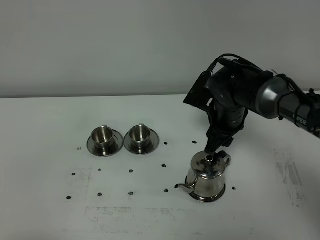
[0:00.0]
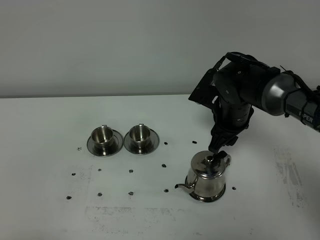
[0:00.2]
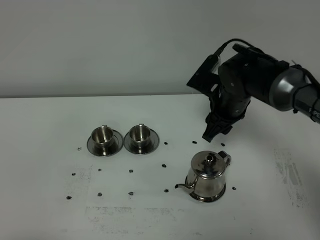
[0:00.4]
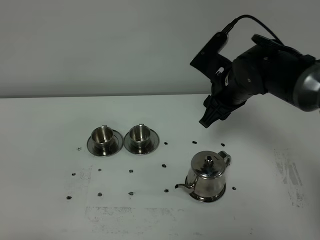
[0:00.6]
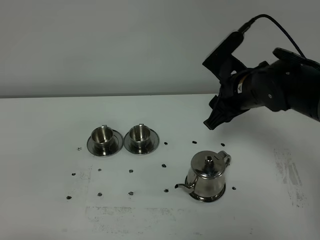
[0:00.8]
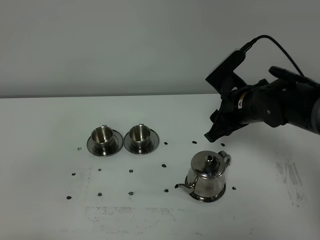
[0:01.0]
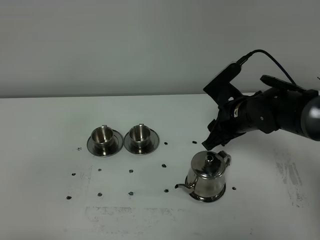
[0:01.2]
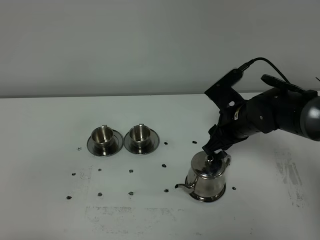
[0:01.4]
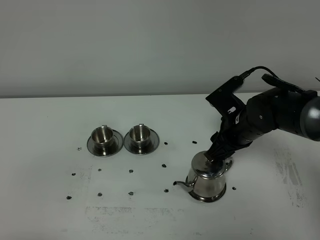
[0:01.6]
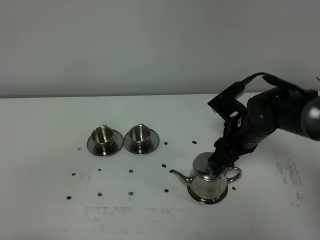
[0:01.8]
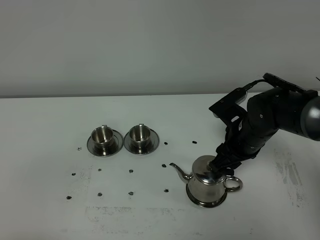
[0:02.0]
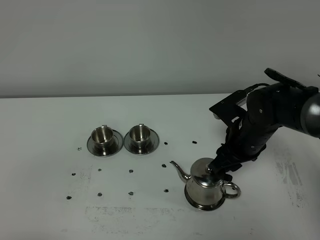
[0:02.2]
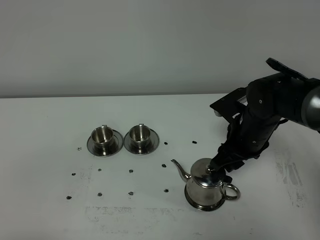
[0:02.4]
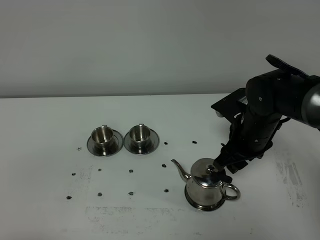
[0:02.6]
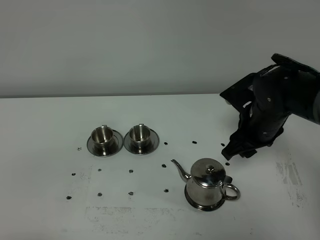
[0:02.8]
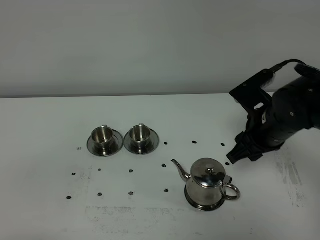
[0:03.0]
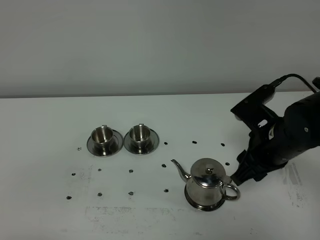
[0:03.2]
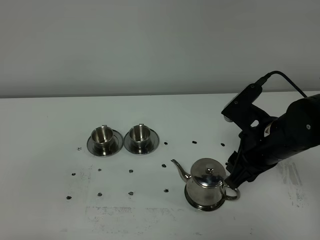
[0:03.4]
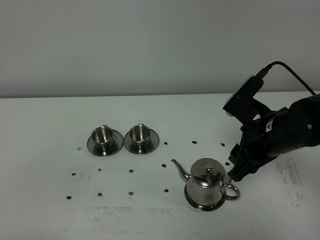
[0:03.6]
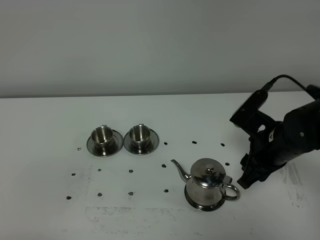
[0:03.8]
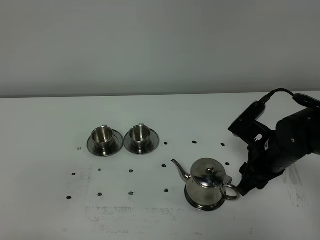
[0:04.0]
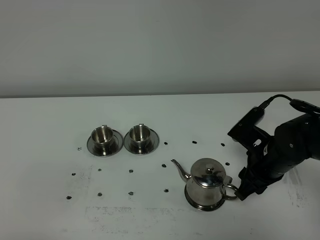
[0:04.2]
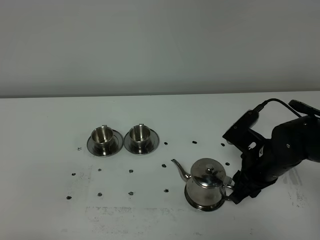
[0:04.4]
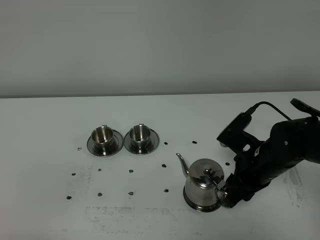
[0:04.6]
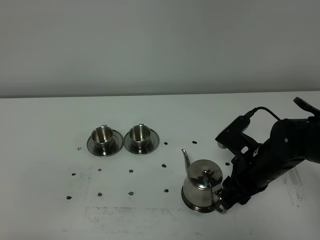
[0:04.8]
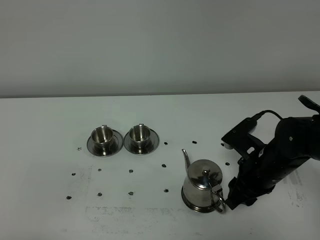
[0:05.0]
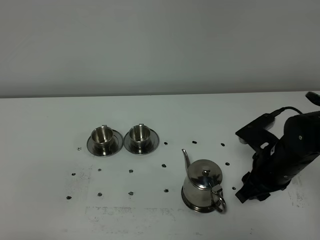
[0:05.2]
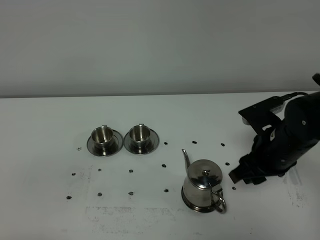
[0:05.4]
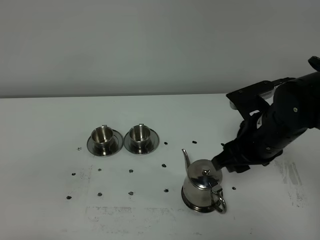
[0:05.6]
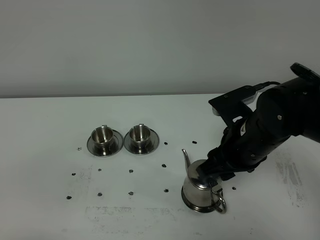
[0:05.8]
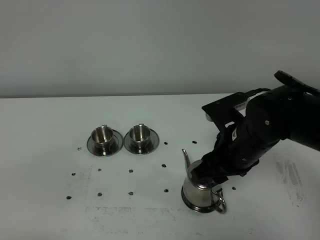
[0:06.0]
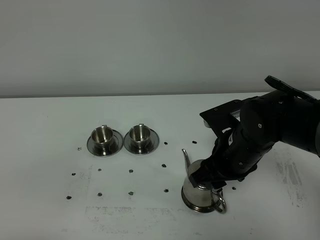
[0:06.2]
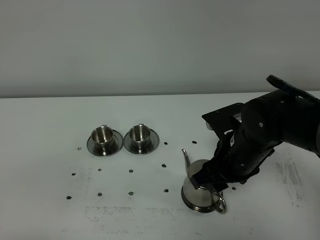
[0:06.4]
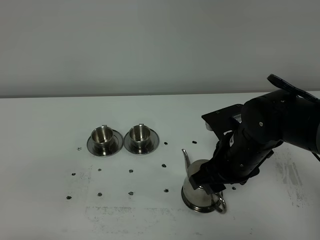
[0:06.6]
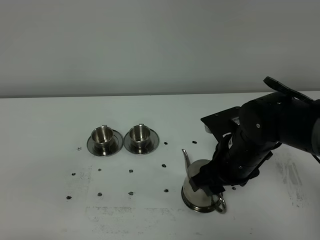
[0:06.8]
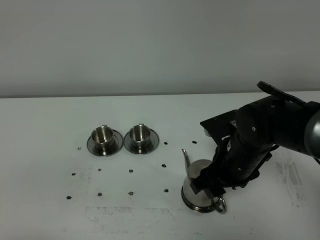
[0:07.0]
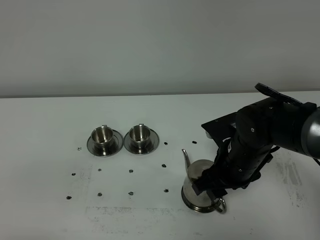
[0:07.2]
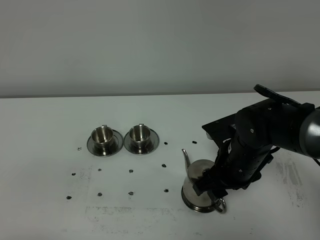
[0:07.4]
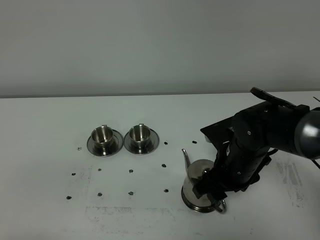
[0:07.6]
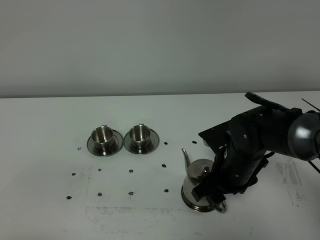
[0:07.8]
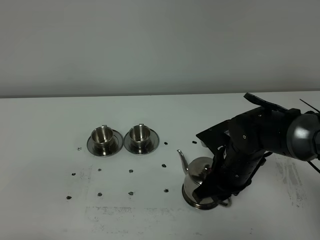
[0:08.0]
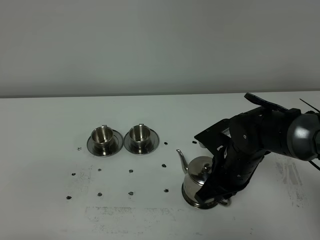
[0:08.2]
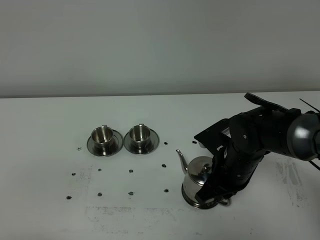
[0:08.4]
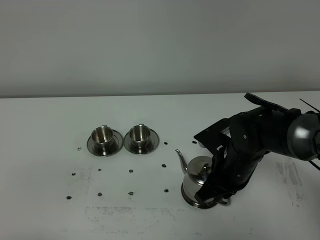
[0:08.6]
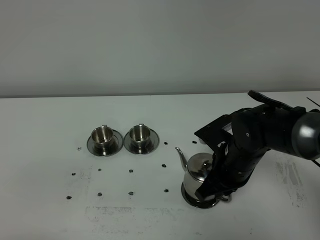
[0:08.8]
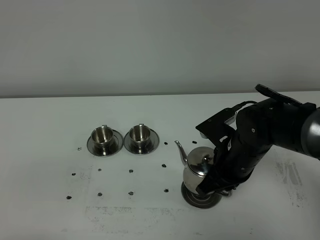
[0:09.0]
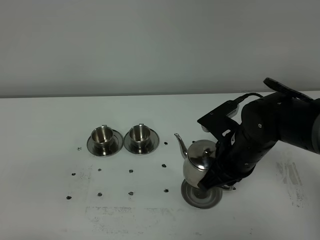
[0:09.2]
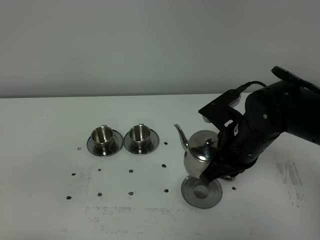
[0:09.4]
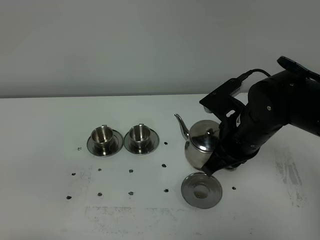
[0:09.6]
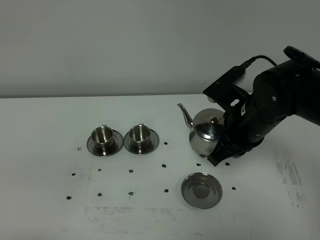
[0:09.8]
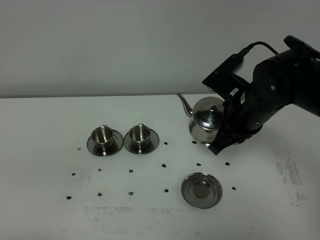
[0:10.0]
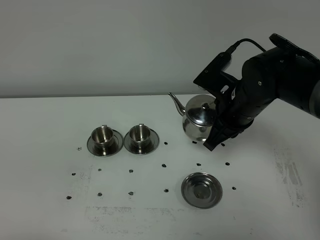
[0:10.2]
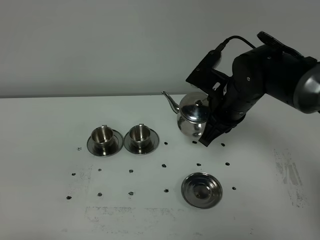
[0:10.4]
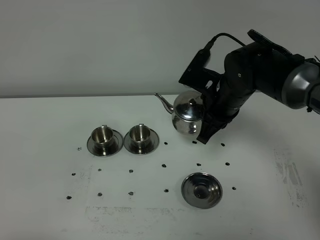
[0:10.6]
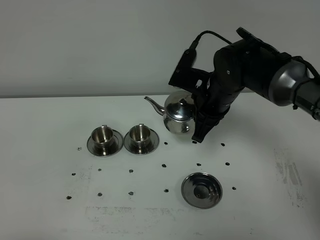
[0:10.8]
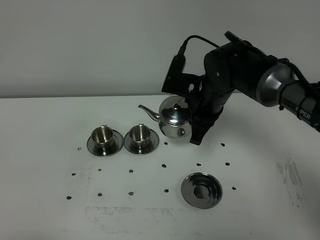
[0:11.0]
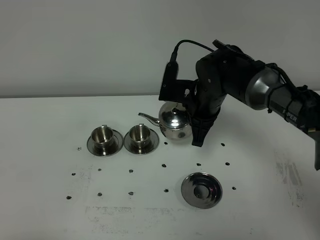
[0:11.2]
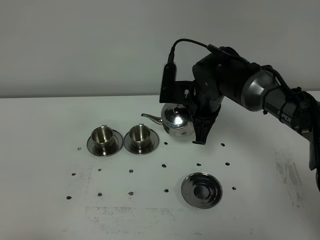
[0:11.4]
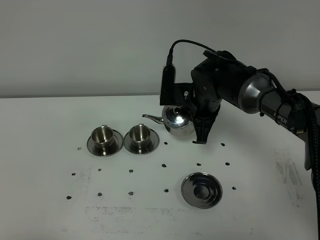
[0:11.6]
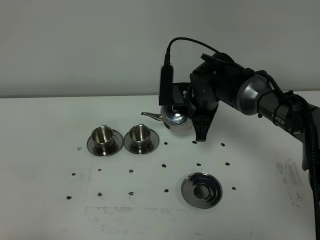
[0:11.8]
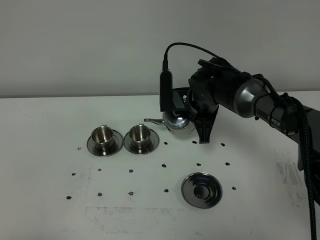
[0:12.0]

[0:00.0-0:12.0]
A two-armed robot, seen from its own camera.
Task of the whole recording: grasp the stainless steel teapot and pour the tea into the two stainless steel teacups one by one, put the stainless steel teapot back in its original place.
Step, 0:00.0 to 0:09.0: Pick up the teapot with the right gripper.
0:00.0 to 0:01.6: The right gripper travels upward and back again, about 5 cm each way.
0:01.6 to 0:03.0: The right gripper travels upward by some 5 cm.
0:03.0 to 0:04.4: The right gripper moves downward, approximately 5 cm.
0:04.4 to 0:06.0: The right gripper moves upward and to the left, about 10 cm.
0:06.0 to 0:07.6: The right gripper heads downward, covering some 5 cm.
0:07.6 to 0:09.0: The right gripper closes.
0:09.0 to 0:10.4: The right gripper goes roughly 10 cm forward and upward.
0:10.4 to 0:12.0: The right gripper shifts about 5 cm forward and downward.

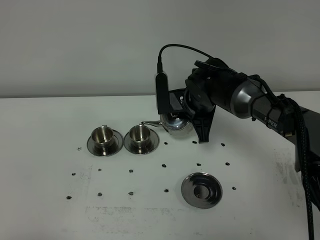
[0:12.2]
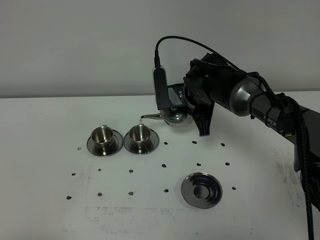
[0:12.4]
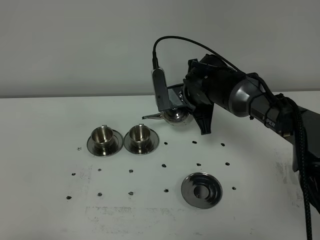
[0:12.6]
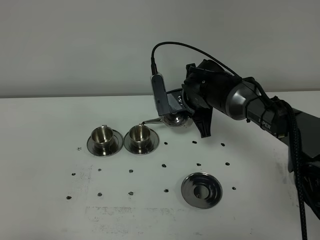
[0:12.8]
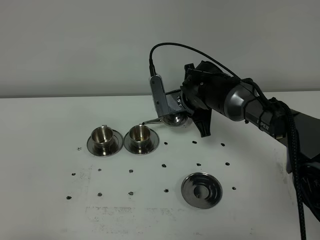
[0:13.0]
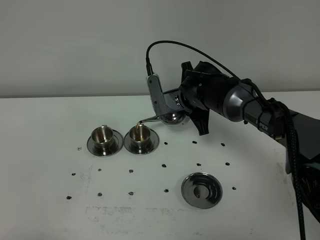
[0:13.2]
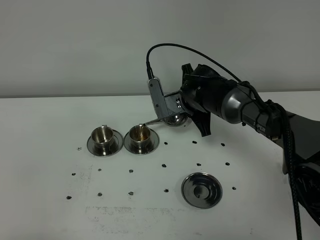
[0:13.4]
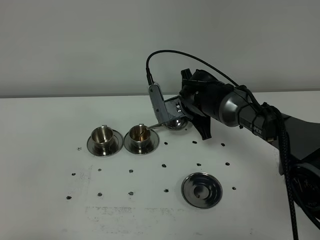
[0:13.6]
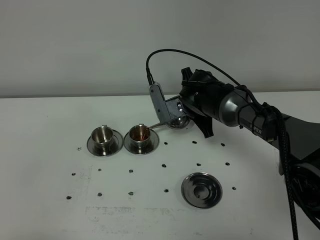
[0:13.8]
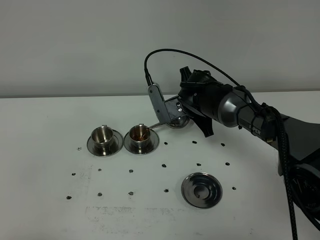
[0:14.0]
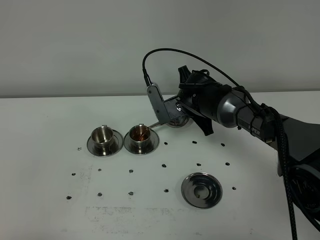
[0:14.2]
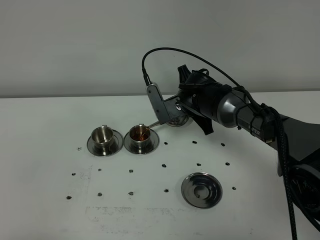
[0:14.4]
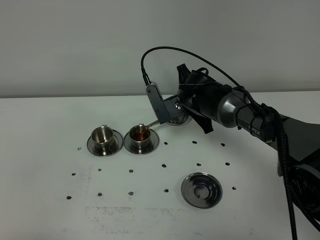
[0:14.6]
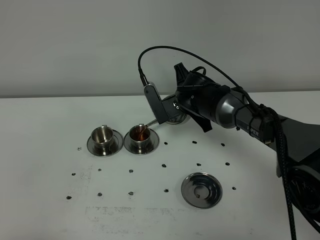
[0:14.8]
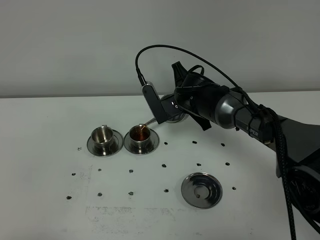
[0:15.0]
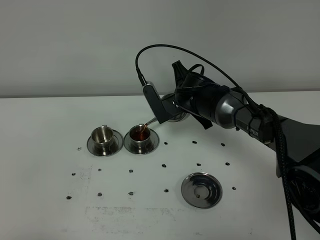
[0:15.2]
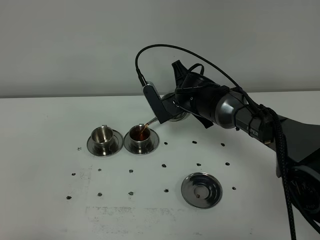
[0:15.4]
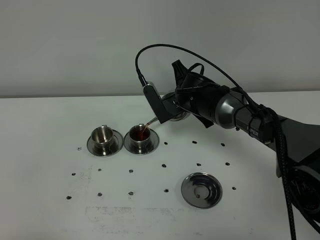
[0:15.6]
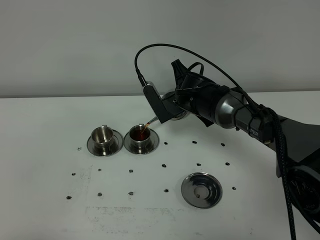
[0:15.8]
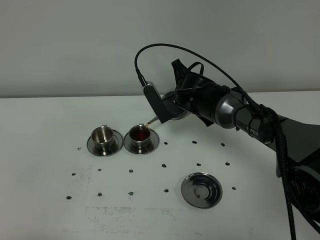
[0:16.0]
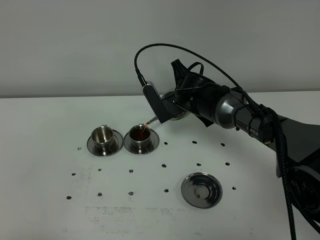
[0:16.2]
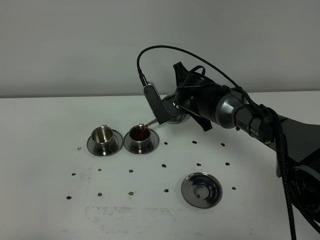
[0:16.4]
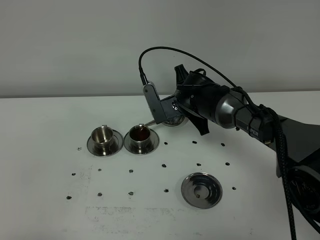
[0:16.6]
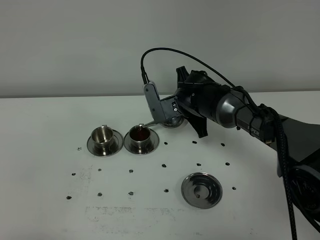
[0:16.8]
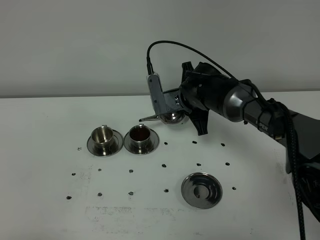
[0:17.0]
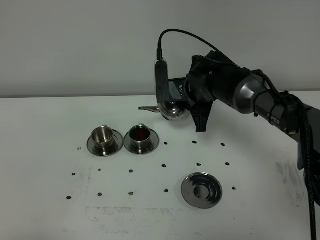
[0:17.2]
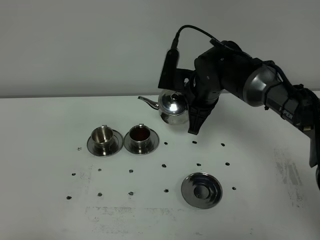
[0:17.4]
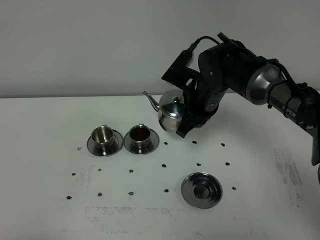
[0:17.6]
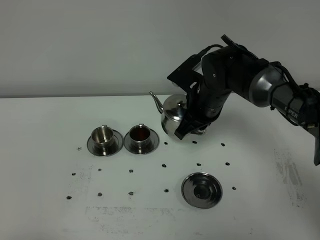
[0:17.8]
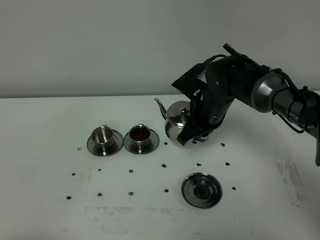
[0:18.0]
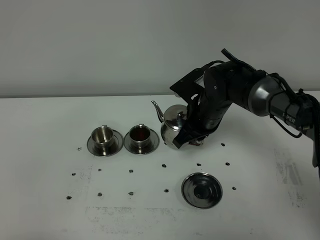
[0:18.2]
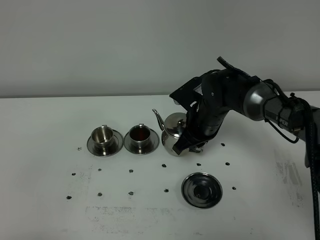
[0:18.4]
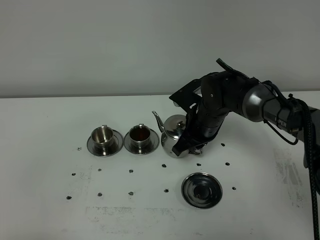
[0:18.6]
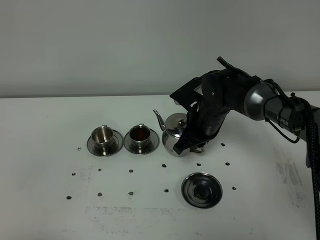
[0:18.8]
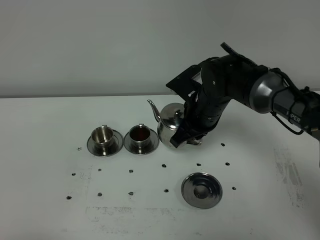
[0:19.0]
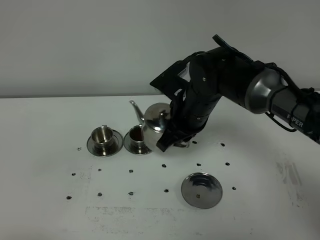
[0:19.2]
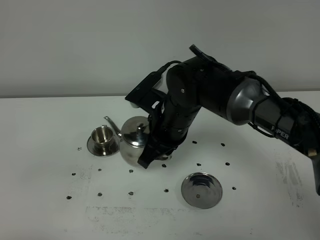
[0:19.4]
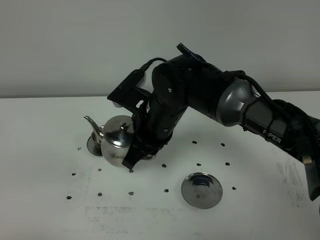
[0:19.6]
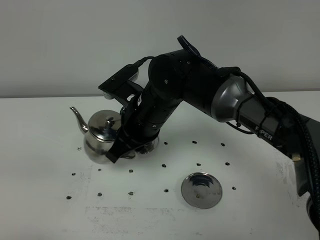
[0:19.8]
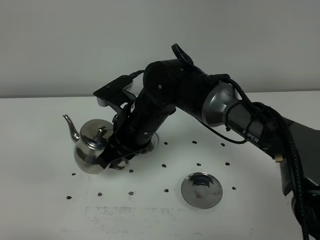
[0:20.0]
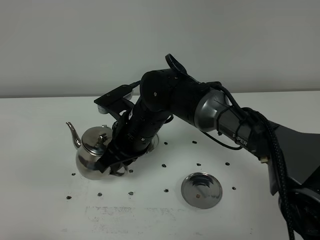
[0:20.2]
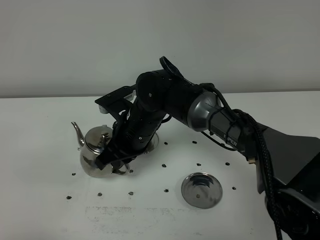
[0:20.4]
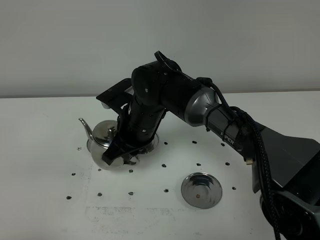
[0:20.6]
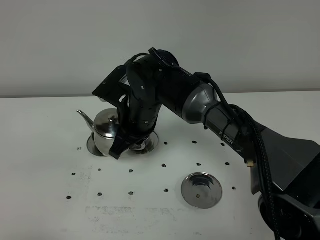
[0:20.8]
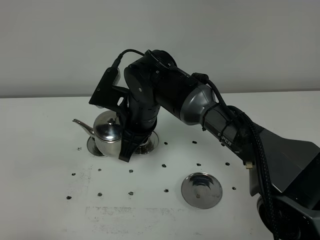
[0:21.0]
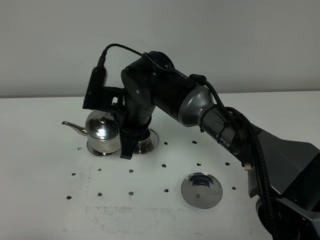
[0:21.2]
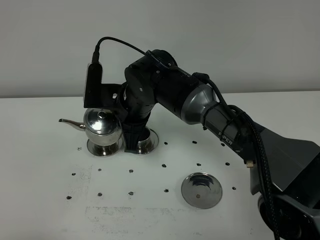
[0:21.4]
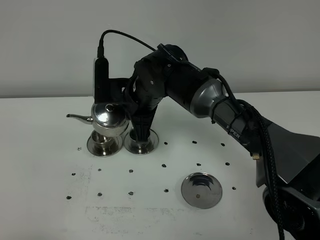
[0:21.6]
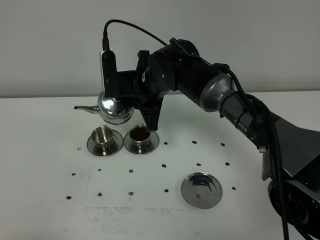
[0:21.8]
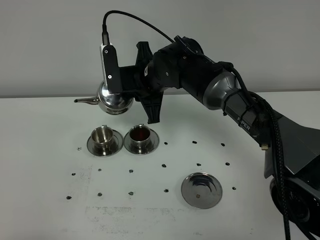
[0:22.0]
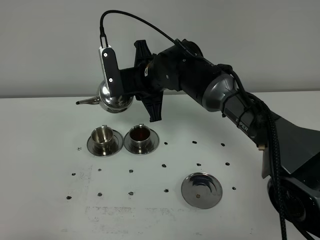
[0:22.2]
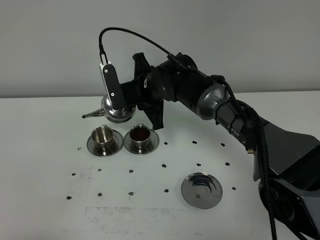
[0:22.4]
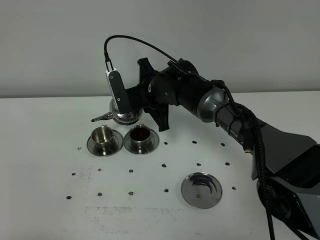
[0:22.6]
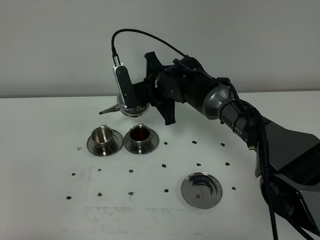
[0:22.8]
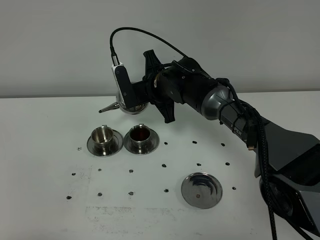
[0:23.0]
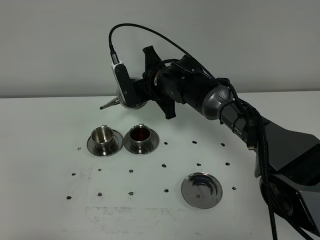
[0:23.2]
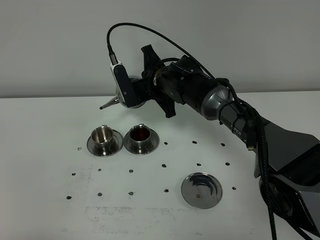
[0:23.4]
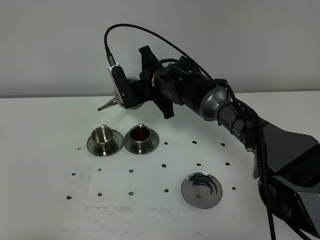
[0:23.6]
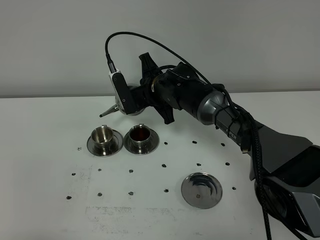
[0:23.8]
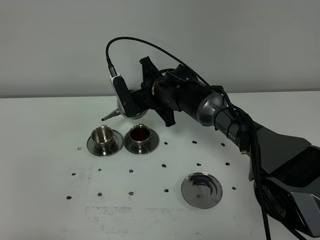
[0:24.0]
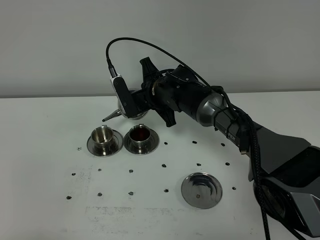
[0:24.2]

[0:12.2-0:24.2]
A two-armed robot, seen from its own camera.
Task of the whole recording: grasp the stainless steel teapot and pour the tea into the two stainless steel teacups one by one, put the stainless steel teapot back in its original place.
Step, 0:12.2 to 0:16.8: Pour tea into the teacup with the right gripper.
0:12.2 to 0:13.8: There are only small adjustments of the grippers.
0:13.8 to 0:16.6: The grippers move only a little.
0:18.2 to 0:19.8: The right gripper is displaced to the left, backward and upward by some 15 cm.
0:21.2 to 0:22.6: The right gripper goes roughly 10 cm forward.
0:22.6 to 0:24.2: The grippers make only small movements.
